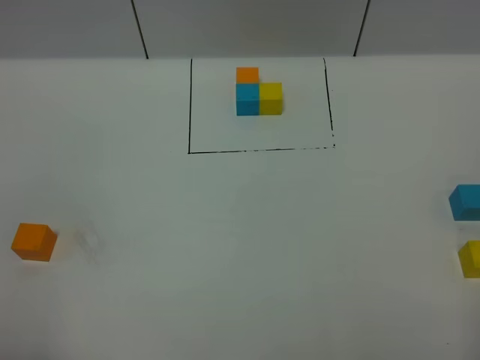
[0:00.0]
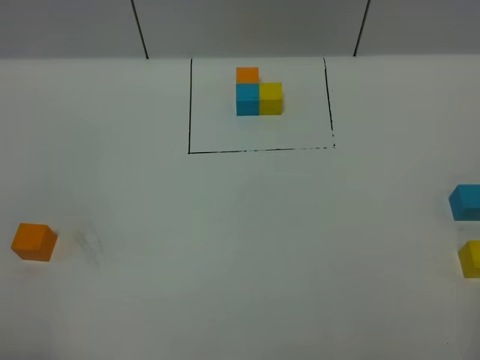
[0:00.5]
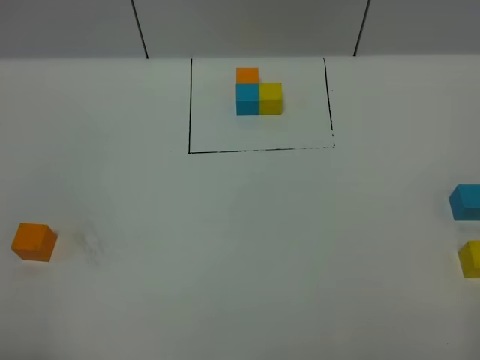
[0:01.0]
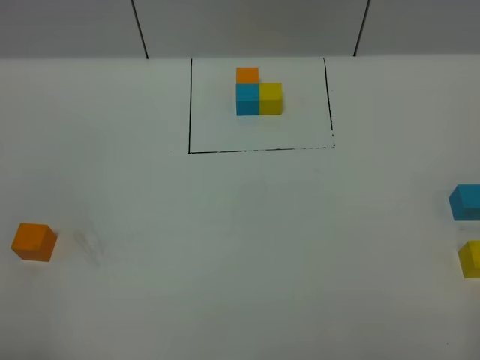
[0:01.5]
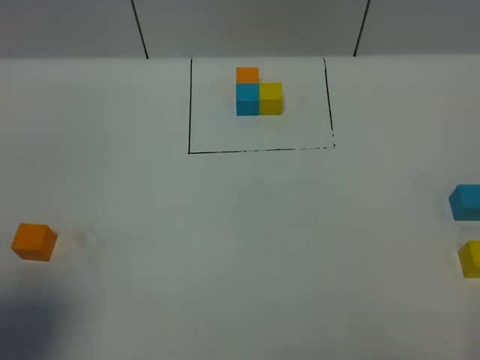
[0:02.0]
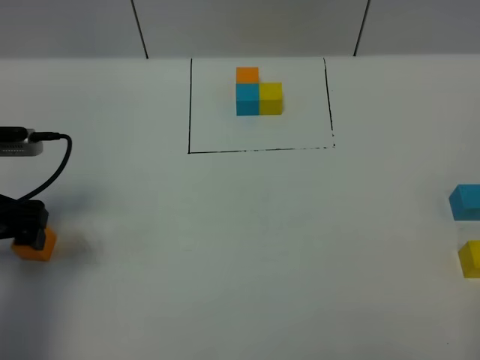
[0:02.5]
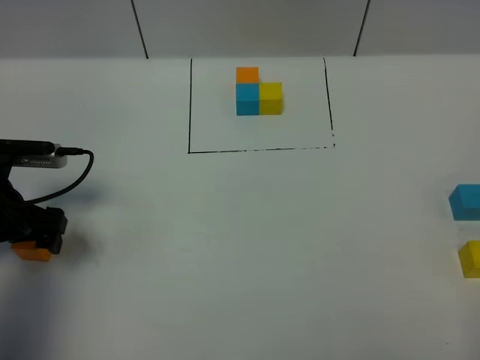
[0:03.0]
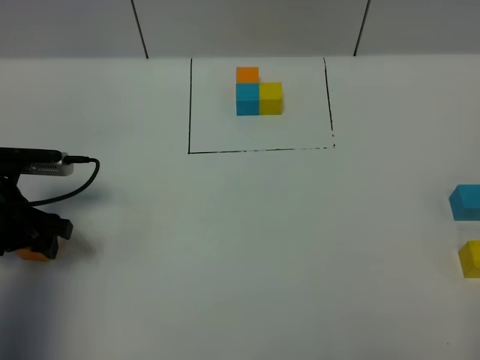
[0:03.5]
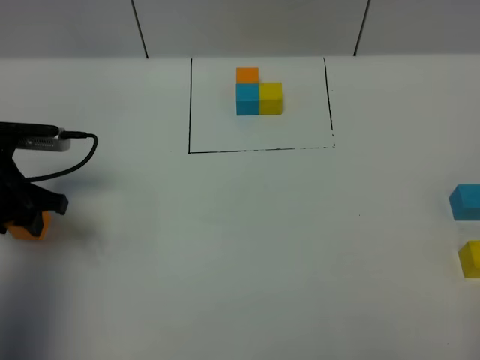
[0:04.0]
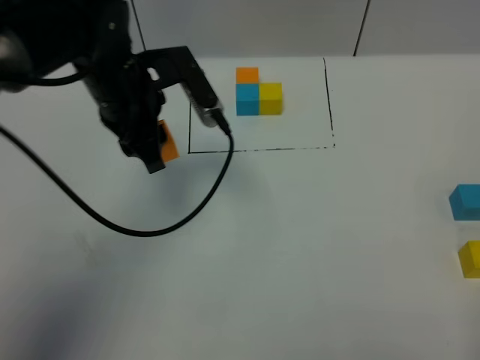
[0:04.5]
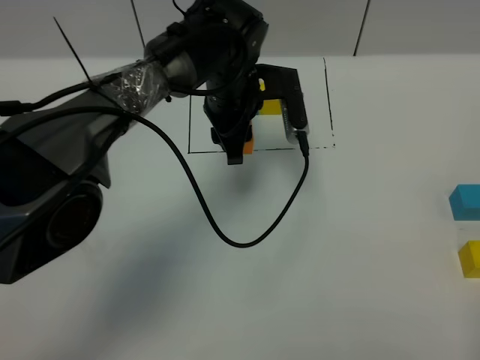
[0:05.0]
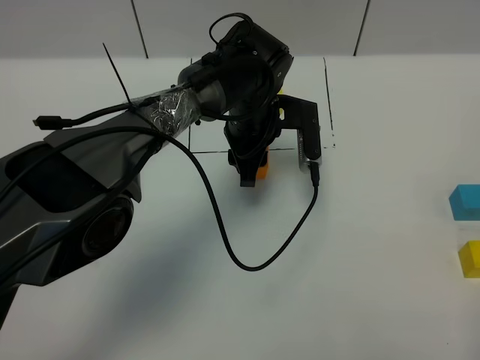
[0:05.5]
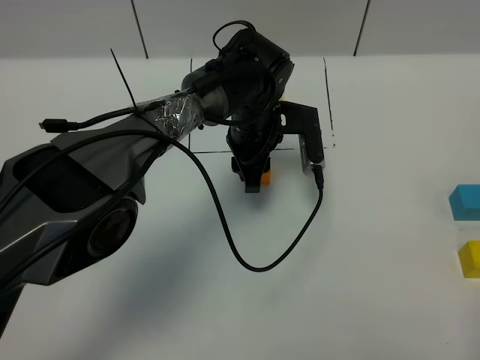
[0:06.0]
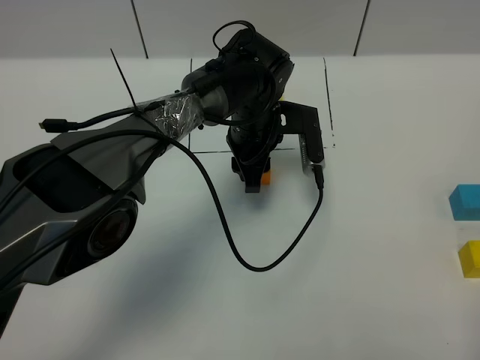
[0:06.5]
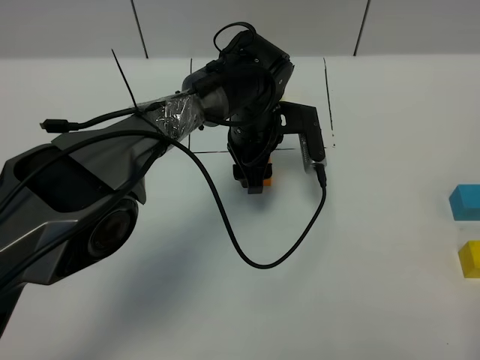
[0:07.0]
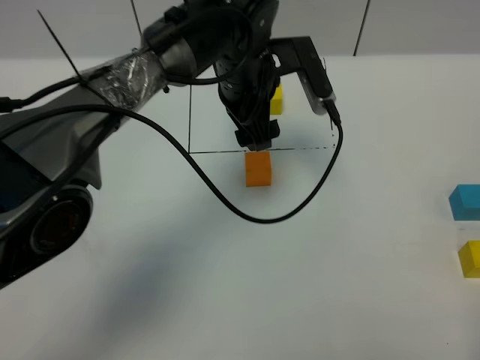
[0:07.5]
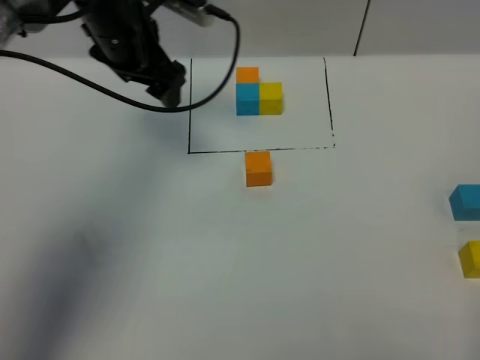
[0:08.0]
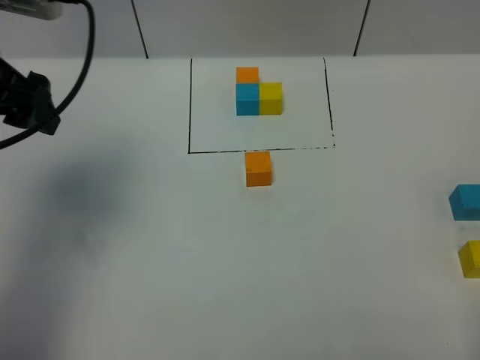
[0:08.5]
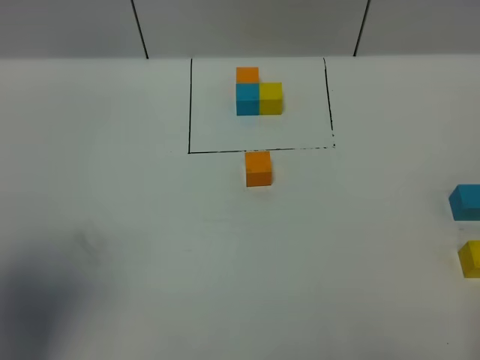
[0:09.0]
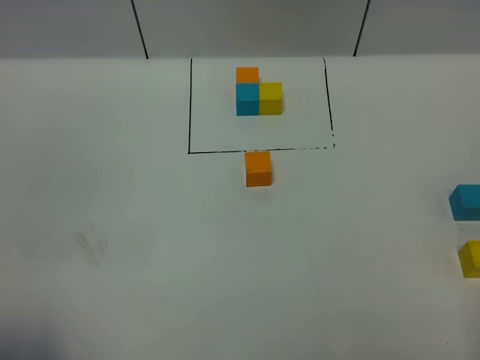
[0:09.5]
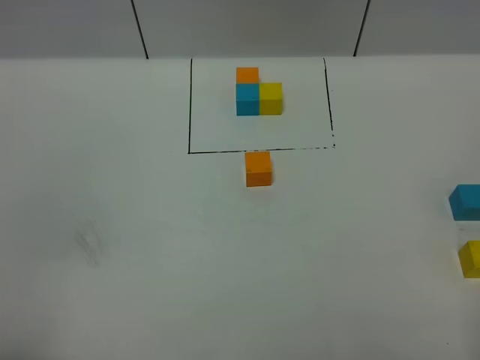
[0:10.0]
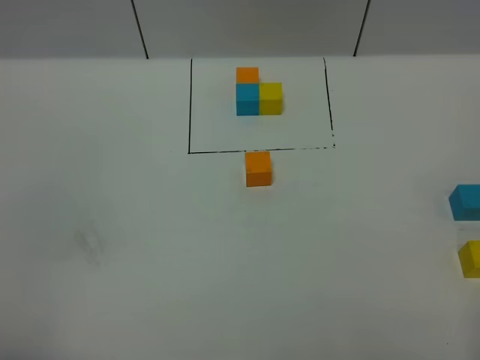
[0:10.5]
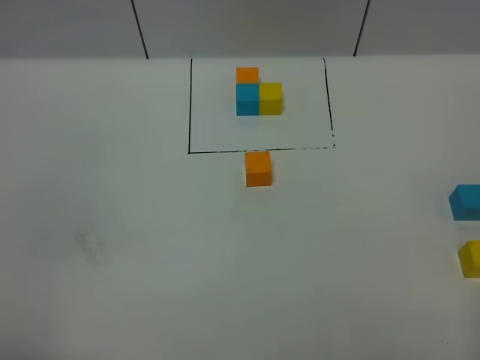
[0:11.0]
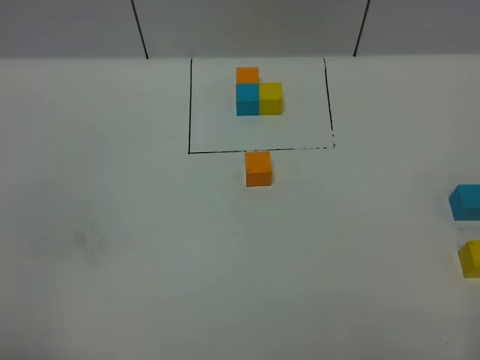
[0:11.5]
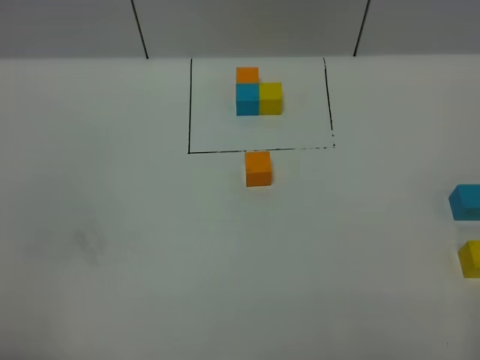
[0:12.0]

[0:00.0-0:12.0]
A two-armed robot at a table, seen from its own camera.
Task of the whole recording: According to the building block template in front, assemble the scattered blocks together.
Step, 0:00.0 to 0:06.5: Put the orange build block in the center of the table.
0:00.0 to 0:02.0: The left gripper heads forward, covering roughly 10 cm, and opens its fingers.
0:02.0 to 0:04.0: The left gripper travels forward and downward by approximately 25 cm, and closes.
0:04.0 to 0:06.0: The left gripper heads to the right, covering roughly 30 cm.
0:06.0 to 0:08.0: The left gripper heads to the left and upward, covering roughly 20 cm, and opens.
0:08.0 to 0:10.0: The left gripper is displaced backward by about 50 cm.

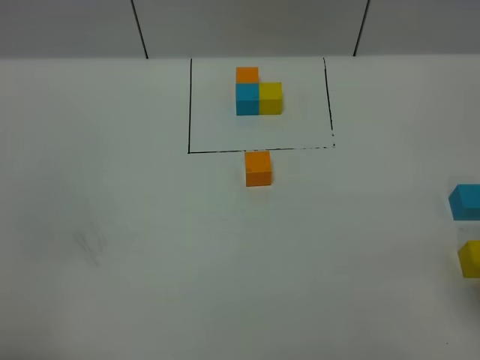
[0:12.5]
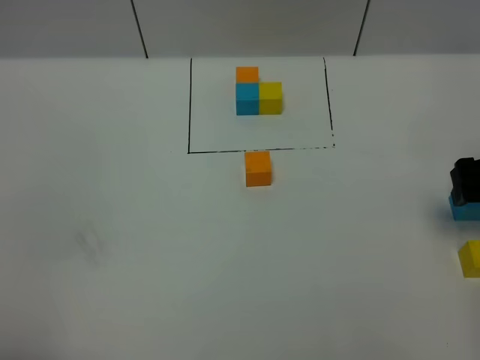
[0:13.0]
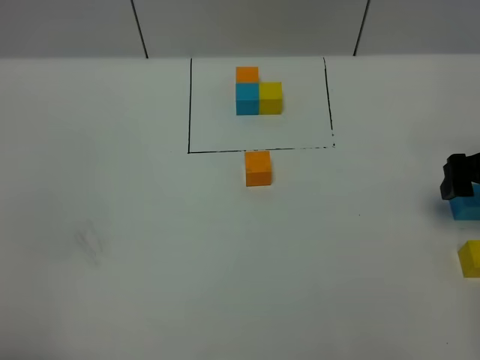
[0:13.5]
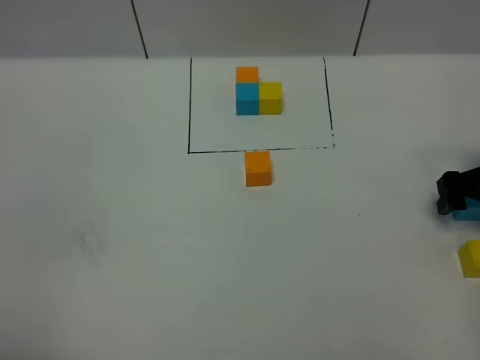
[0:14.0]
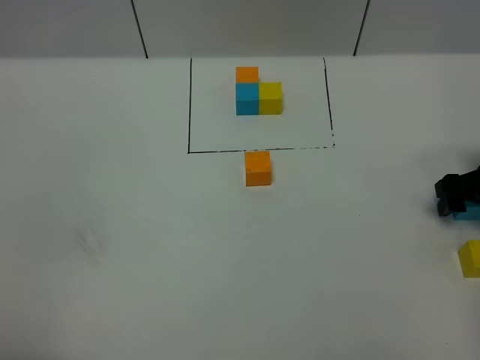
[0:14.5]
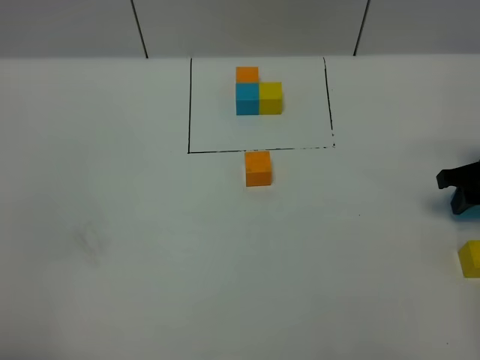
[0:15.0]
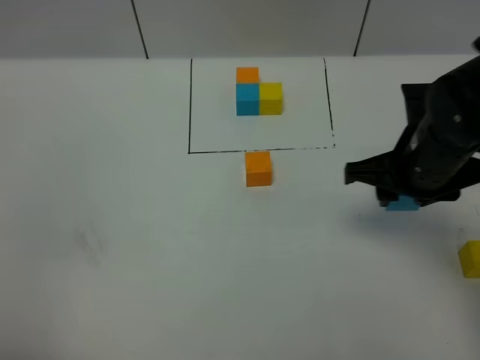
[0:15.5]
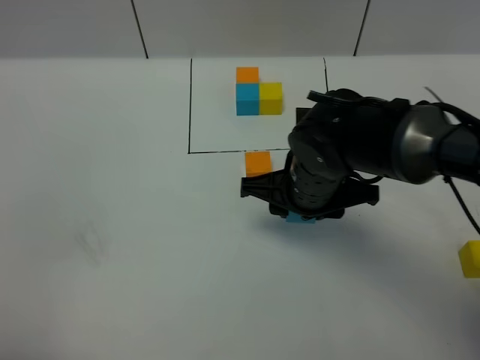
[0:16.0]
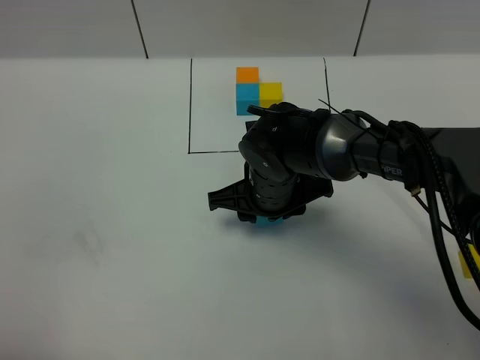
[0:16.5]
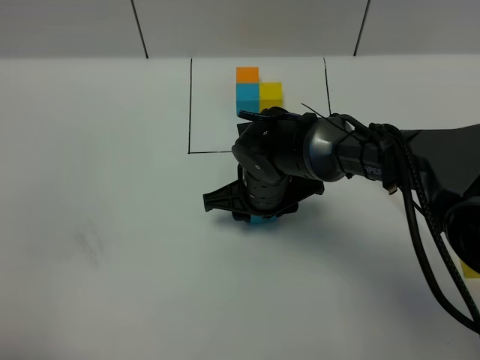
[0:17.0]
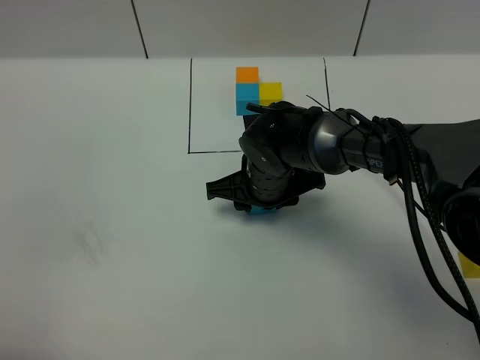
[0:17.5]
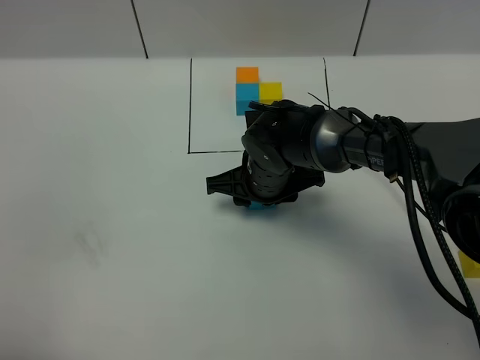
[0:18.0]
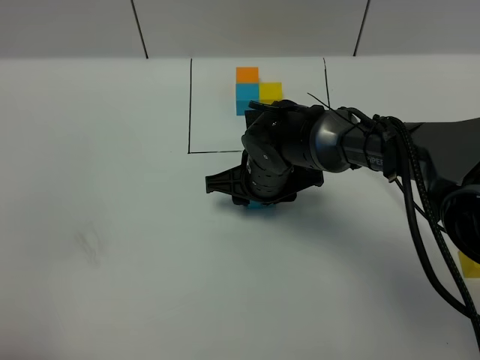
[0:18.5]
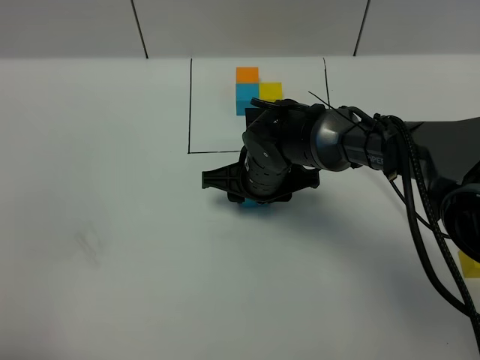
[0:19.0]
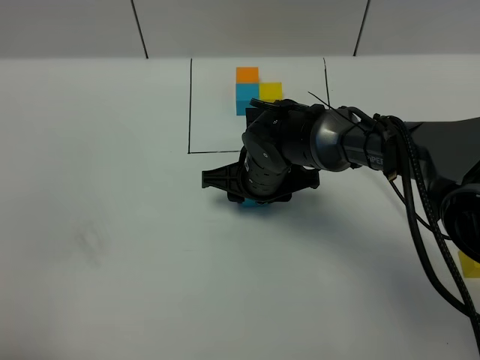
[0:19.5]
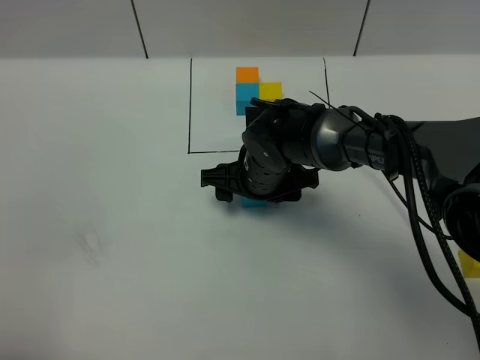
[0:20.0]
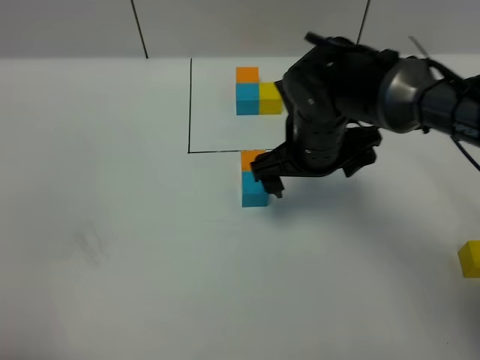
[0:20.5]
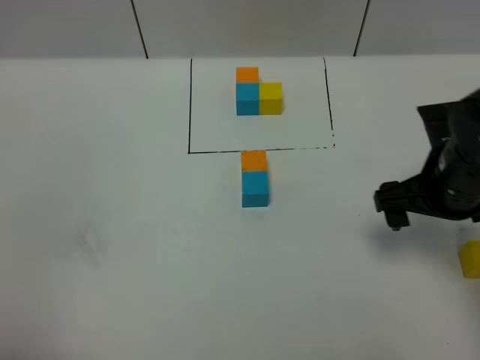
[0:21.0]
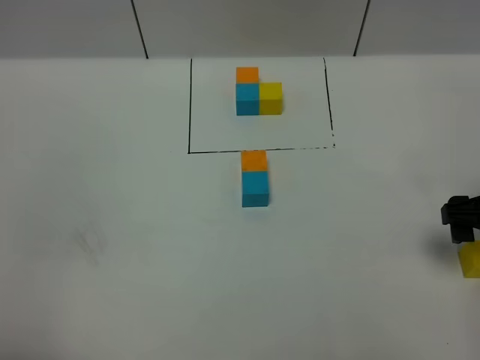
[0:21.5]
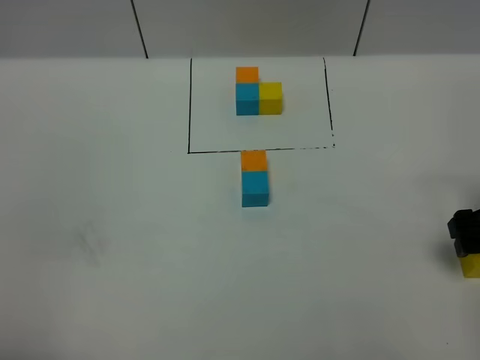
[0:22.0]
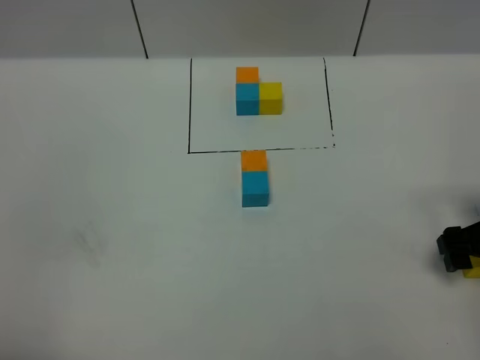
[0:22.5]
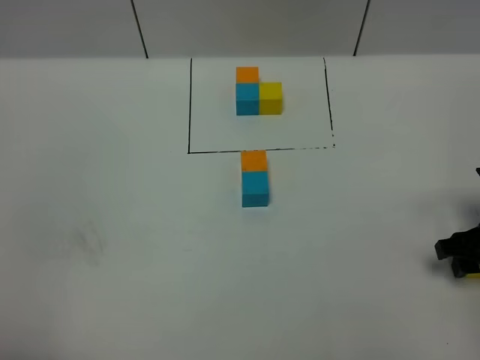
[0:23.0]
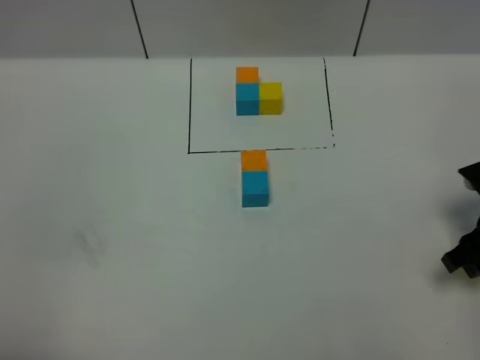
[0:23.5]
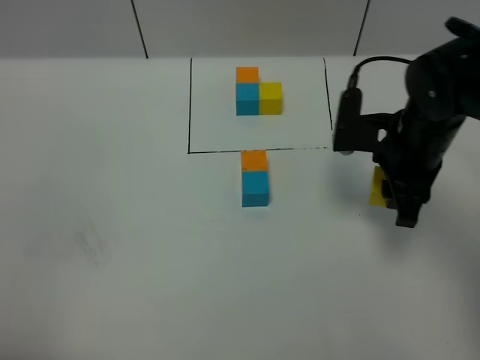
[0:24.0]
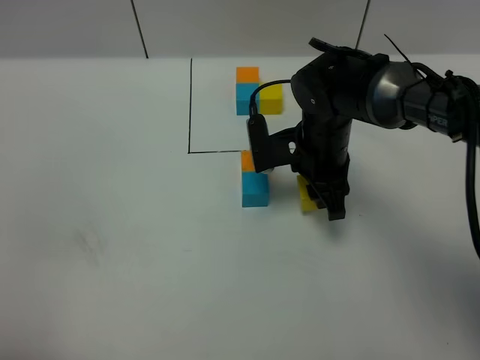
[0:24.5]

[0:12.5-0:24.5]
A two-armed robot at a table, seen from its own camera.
Task of the whole recording: According to the building block template in front, assemble the scattered blocks together.
Step, 0:12.5 to 0:19.5: Put the blue build block on the behind of the orange build block.
0:12.5 to 0:14.5: The right gripper travels downward and forward by about 25 cm.
0:14.5 to 0:16.5: The right gripper goes approximately 30 cm to the left, and closes its fingers.
0:16.5 to 0:18.5: The grippers move only a little.
0:18.5 to 0:20.5: The right gripper heads upward and to the right, covering about 10 cm, and opens its fingers.
0:20.5 to 0:22.5: The right gripper goes some 25 cm to the right.
0:22.5 to 0:24.5: The right gripper shifts some 25 cm to the left and forward, and closes up.

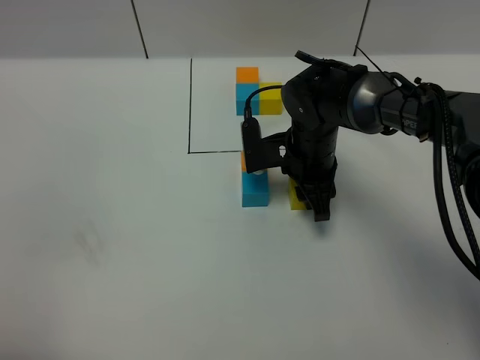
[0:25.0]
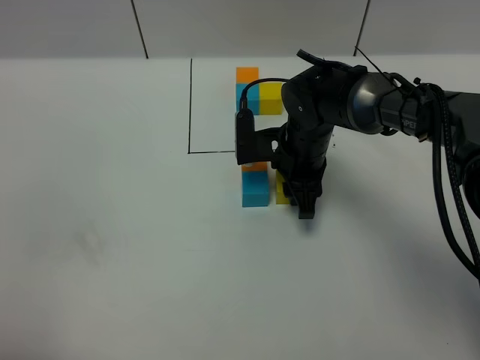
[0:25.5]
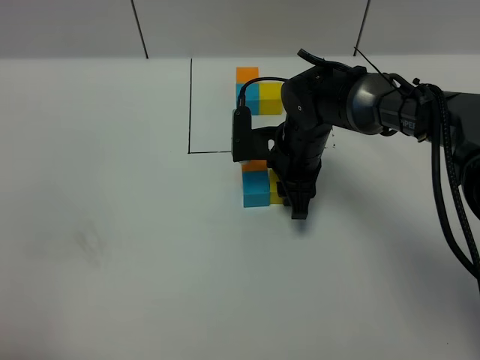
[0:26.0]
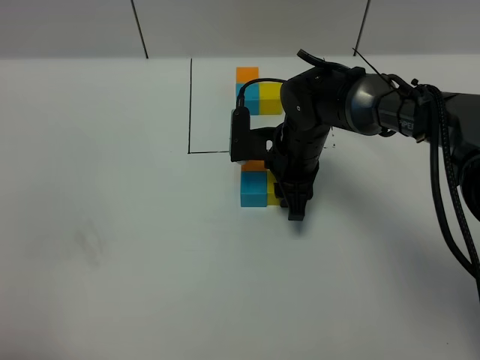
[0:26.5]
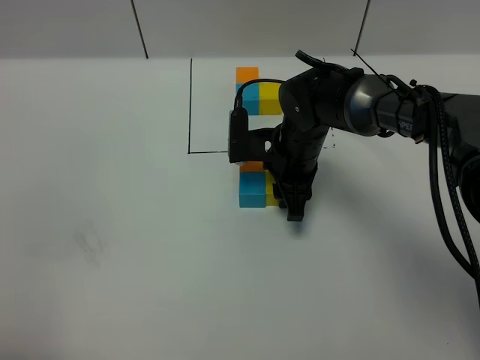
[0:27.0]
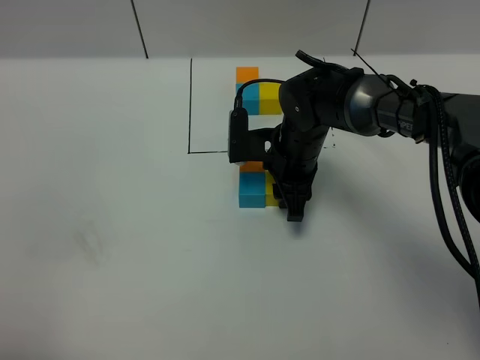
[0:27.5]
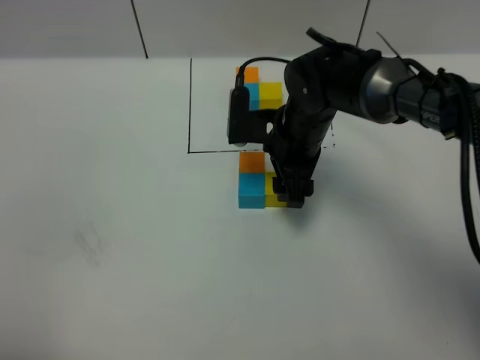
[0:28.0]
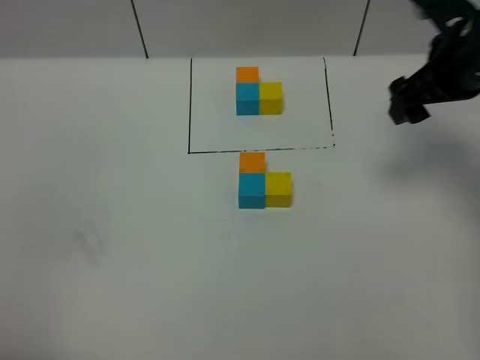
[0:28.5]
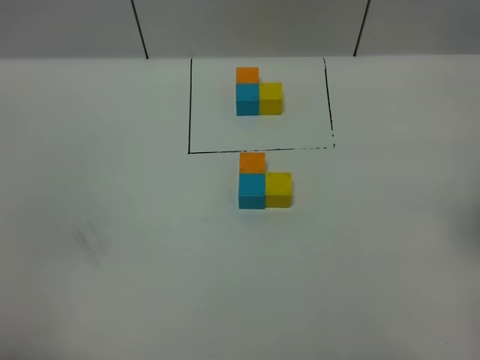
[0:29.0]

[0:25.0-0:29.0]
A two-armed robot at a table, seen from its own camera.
Task of the whole recording: According to the building block template in front, assemble the scattered blocks together.
Step, 0:25.0 to 0:27.5: Put the yellow build block on the right of the blue build block.
0:25.0 to 0:27.0: The grippers make only small movements.
0:27.0 to 0:29.0: The right gripper is displaced to the right, upward and backward by roughly 35 cm, and opens.
